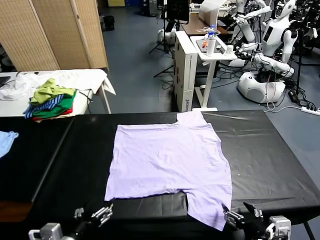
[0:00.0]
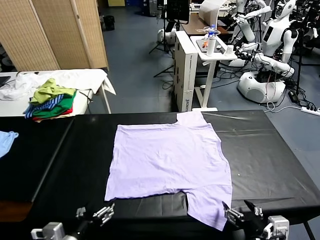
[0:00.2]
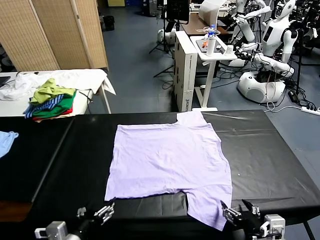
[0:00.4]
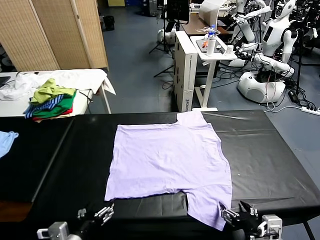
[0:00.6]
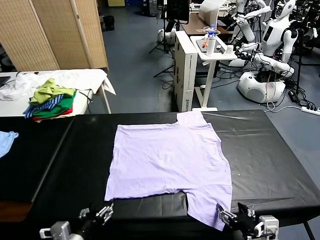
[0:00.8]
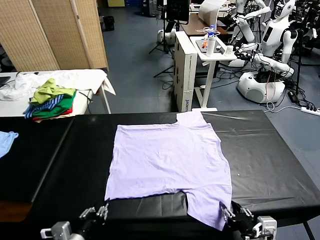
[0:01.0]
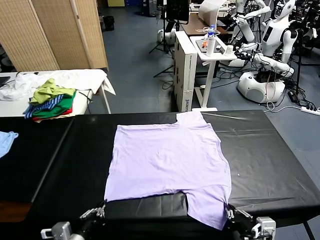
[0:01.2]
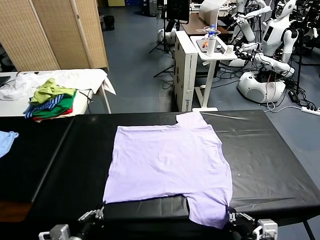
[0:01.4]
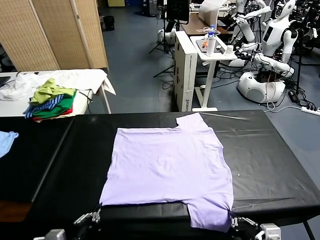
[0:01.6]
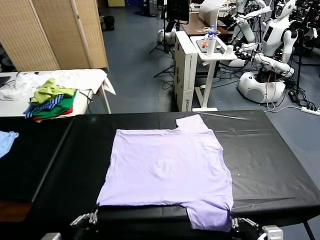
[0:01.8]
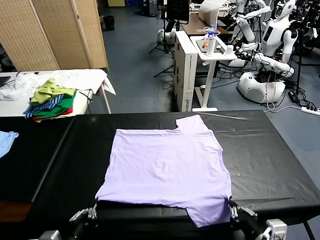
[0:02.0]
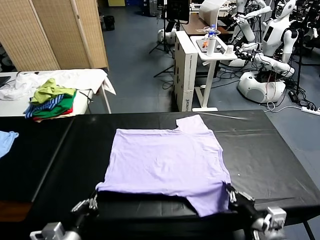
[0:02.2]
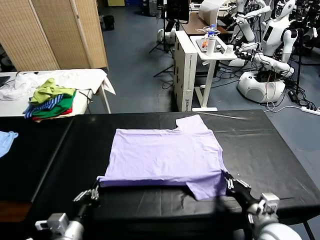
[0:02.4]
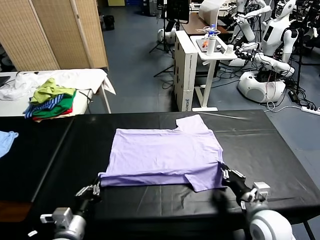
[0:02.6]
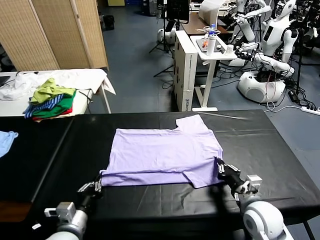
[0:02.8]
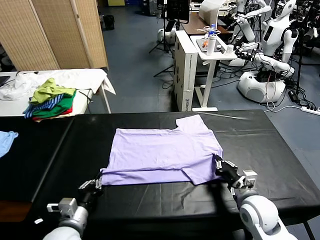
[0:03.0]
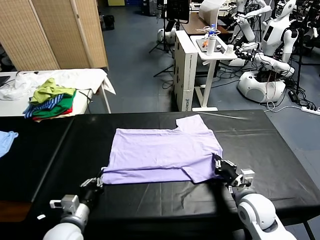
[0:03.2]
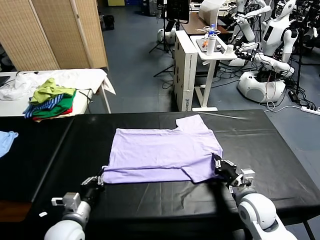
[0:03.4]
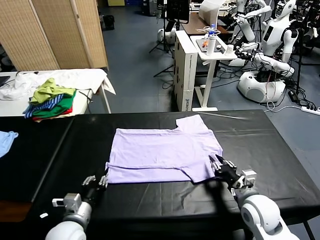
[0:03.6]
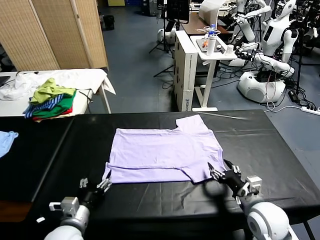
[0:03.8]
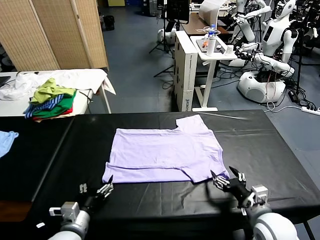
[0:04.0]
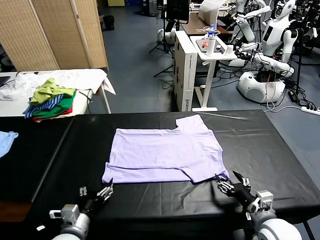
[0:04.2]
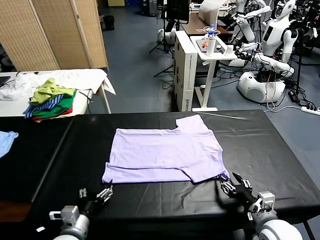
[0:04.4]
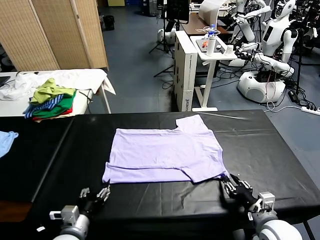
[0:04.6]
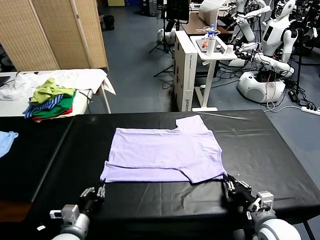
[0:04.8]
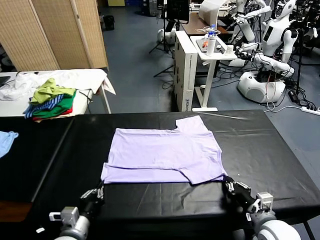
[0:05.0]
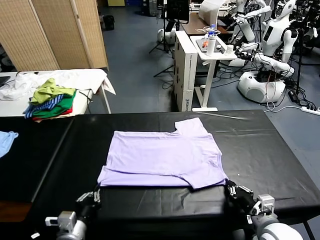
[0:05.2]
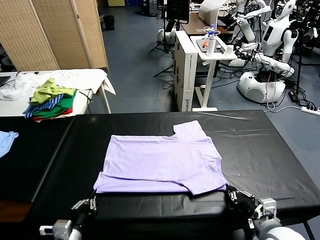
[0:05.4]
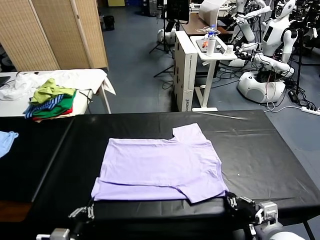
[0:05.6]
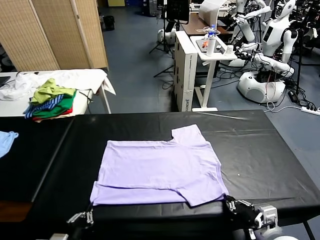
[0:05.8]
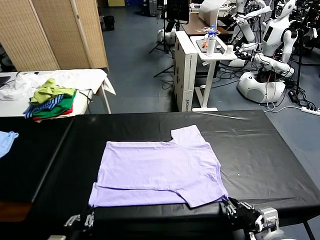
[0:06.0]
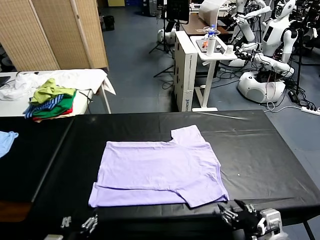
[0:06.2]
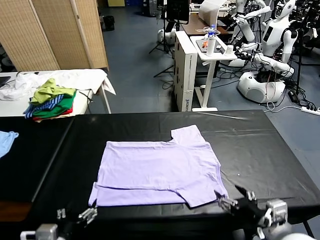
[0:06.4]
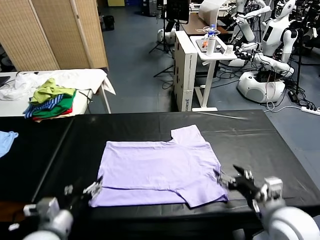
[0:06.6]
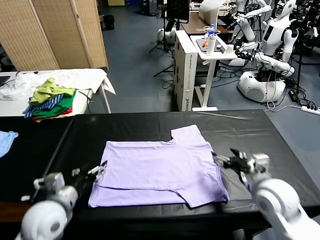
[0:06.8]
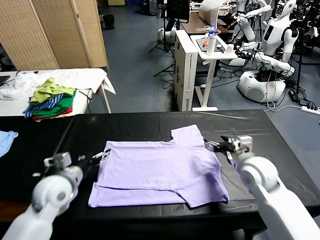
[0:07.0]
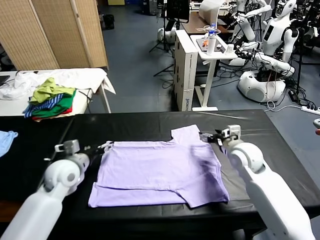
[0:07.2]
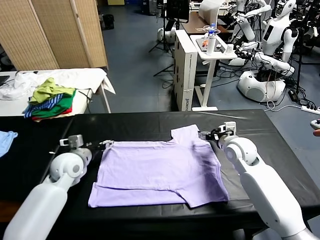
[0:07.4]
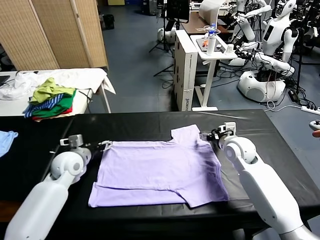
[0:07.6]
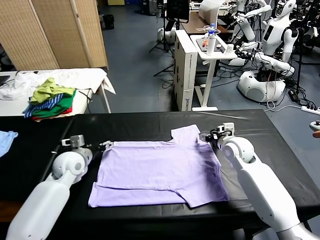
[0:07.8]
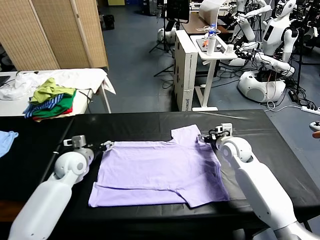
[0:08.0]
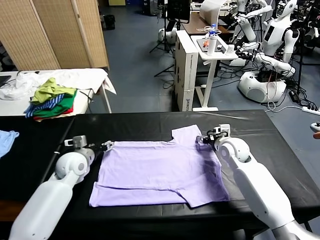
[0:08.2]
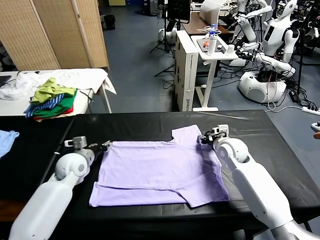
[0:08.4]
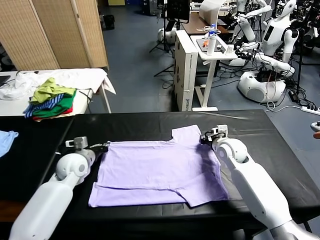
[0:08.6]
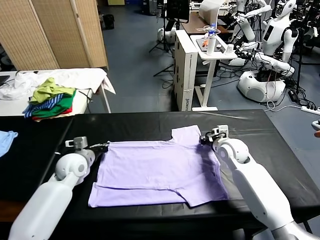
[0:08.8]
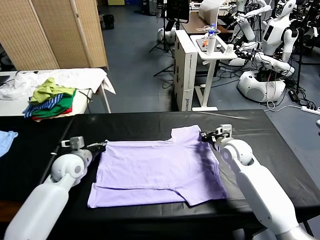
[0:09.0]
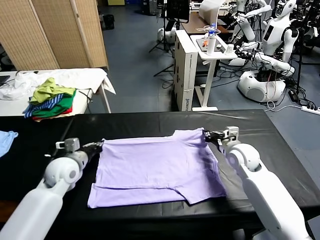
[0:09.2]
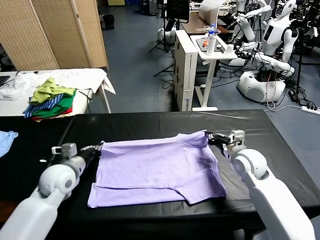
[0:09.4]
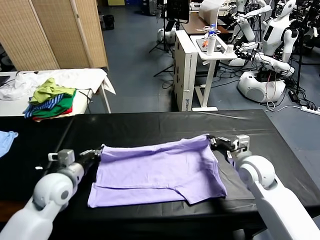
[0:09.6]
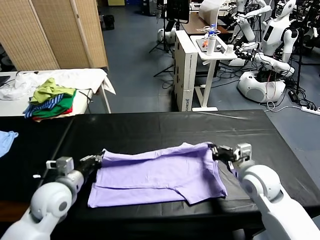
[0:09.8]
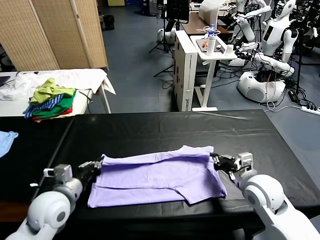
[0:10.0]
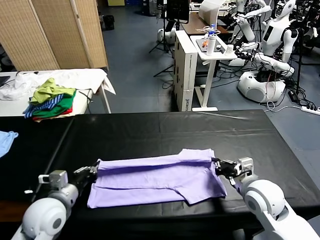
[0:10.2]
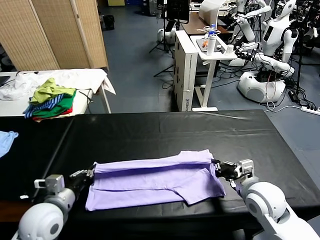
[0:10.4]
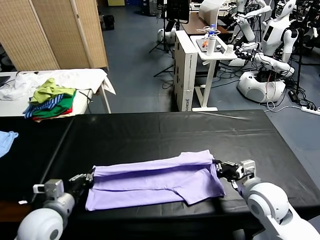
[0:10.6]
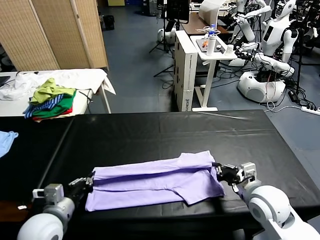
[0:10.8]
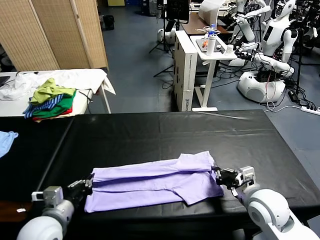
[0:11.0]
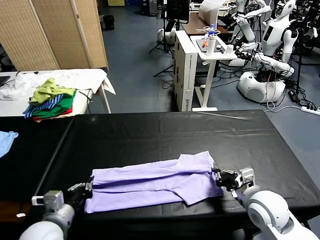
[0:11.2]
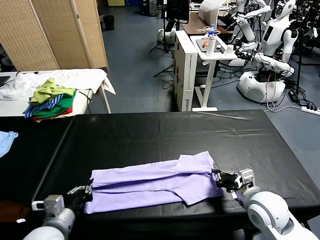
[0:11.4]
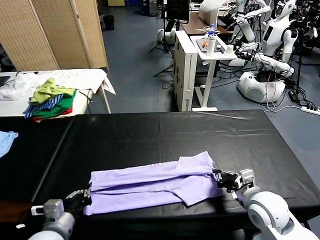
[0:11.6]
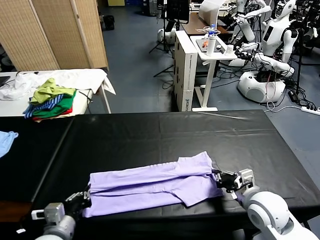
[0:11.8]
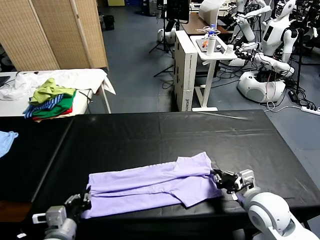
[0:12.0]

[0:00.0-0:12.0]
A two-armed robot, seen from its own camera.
Task of the whole recording: fold and organize the clothes.
Step, 0:00.0 to 0:02.0: use both grippers simultaneously to clamp the lower edge of the clothing fabric.
Step, 0:02.2 to 0:03.6: use both grippers to drag the lower edge of the fabric forward and fold it over the upper edge.
Step, 0:03.8 to 0:06.0: Drag the clothes downward with both gripper.
Step, 0:06.2 to 0:09.0: use both grippers simultaneously to clamp the upper edge of the clothing fabric.
0:01.6 to 0:03.0: The left gripper is displaced forward and downward by some 10 cm. Meanwhile the right gripper heads forward, covering some 15 cm.
0:03.0 to 0:04.4: The right gripper goes some 10 cm backward, and opens its fingers, while the left gripper opens its fingers.
0:04.4 to 0:06.0: The right gripper heads upward and backward, covering approximately 10 cm, and opens up; the left gripper travels backward and upward by approximately 10 cm, and closes, then reopens.
0:06.0 to 0:07.6: Both grippers move forward, approximately 30 cm. The left gripper opens.
0:07.6 to 0:09.0: The right gripper closes up; the left gripper closes its fingers.
0:09.0 to 0:10.4: The two grippers go some 15 cm backward.
0:10.4 to 0:12.0: The right gripper opens up; the left gripper goes approximately 5 cm backward, and opens.

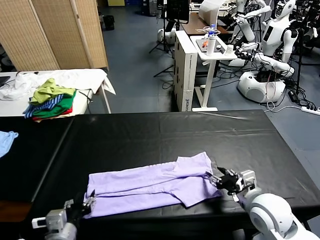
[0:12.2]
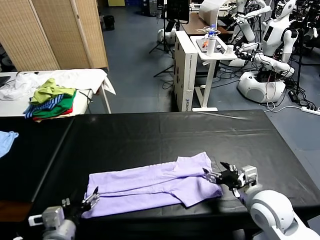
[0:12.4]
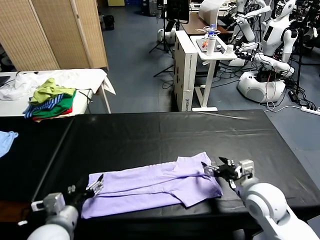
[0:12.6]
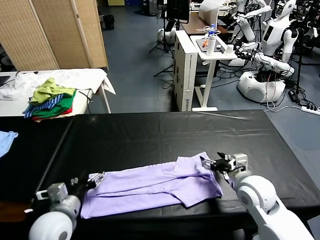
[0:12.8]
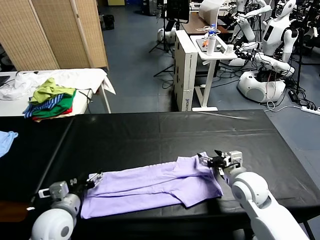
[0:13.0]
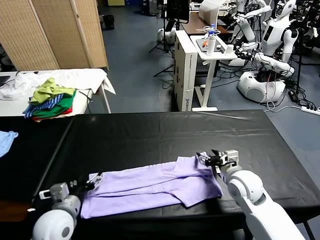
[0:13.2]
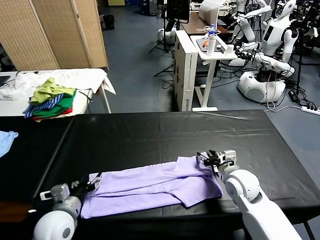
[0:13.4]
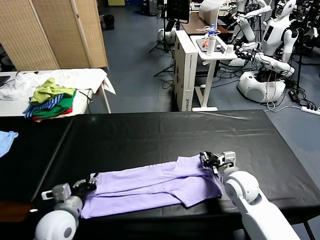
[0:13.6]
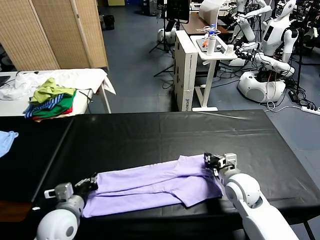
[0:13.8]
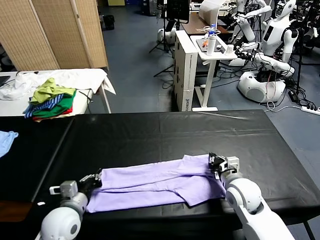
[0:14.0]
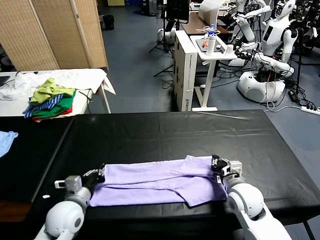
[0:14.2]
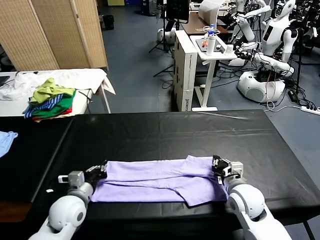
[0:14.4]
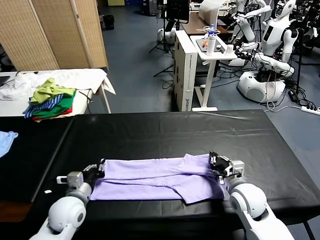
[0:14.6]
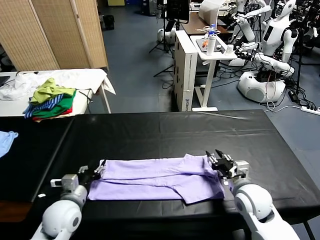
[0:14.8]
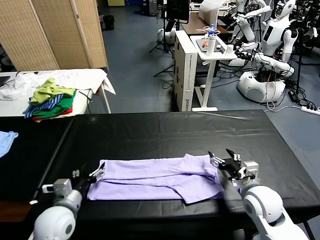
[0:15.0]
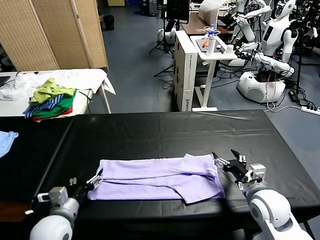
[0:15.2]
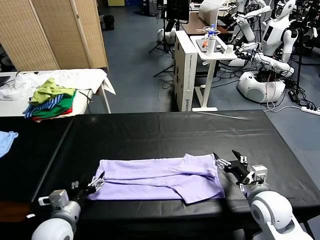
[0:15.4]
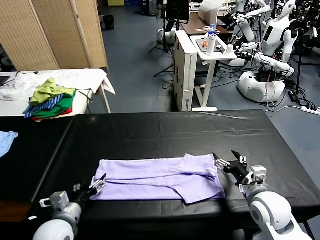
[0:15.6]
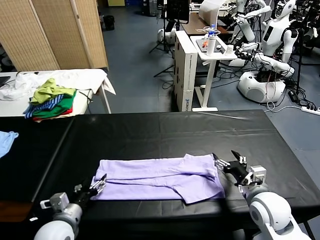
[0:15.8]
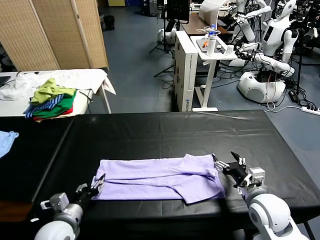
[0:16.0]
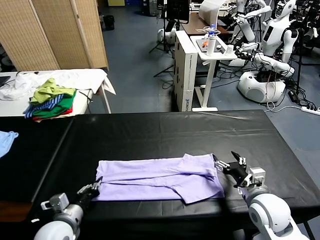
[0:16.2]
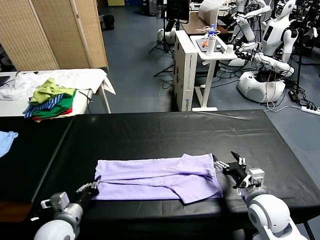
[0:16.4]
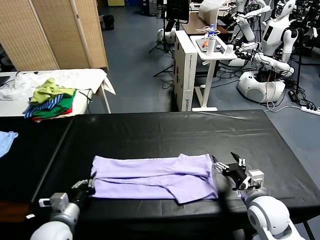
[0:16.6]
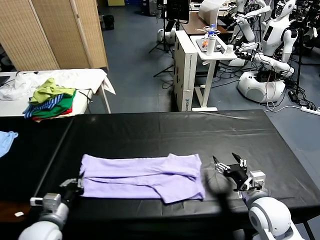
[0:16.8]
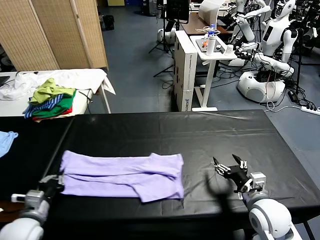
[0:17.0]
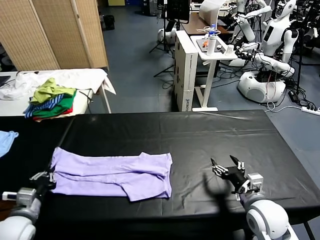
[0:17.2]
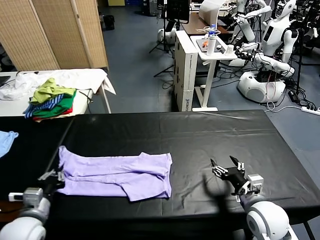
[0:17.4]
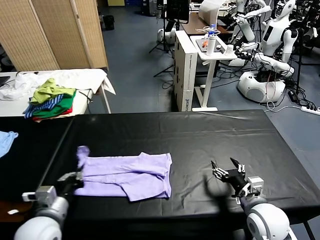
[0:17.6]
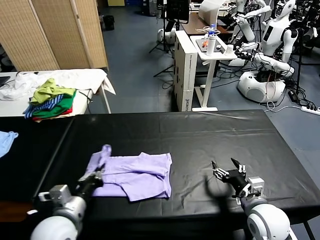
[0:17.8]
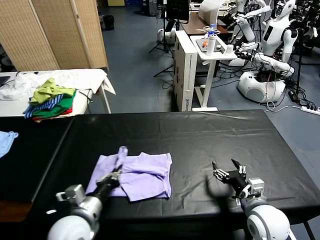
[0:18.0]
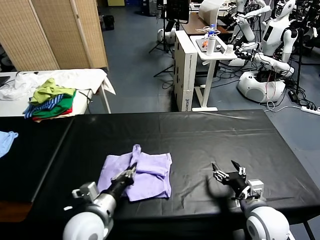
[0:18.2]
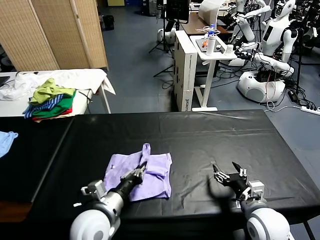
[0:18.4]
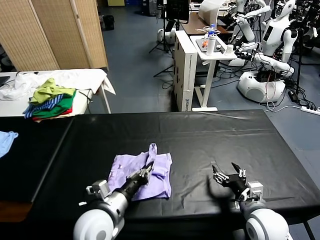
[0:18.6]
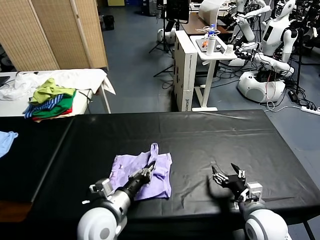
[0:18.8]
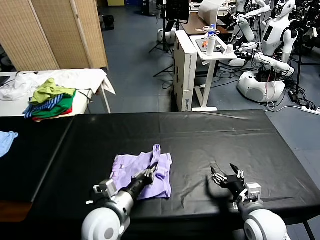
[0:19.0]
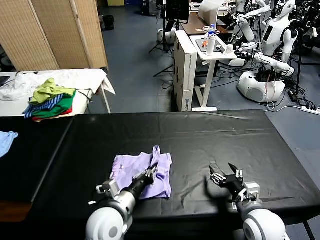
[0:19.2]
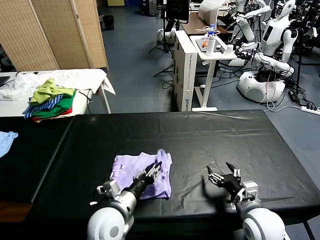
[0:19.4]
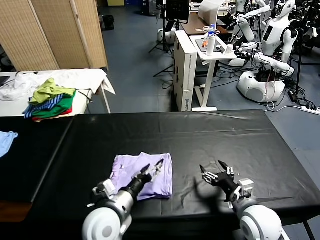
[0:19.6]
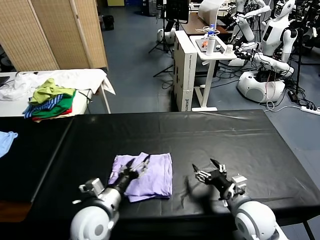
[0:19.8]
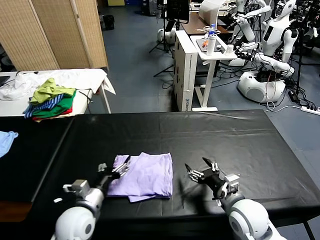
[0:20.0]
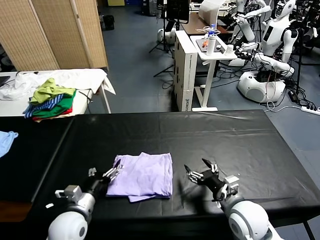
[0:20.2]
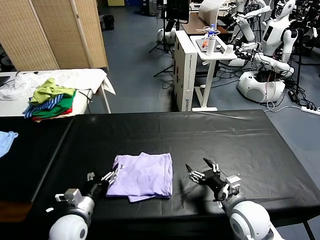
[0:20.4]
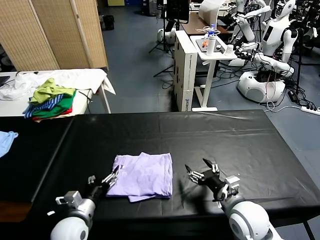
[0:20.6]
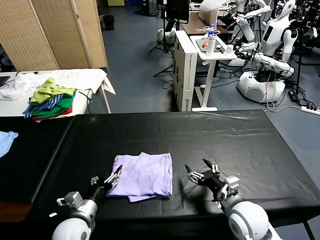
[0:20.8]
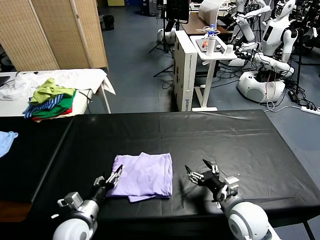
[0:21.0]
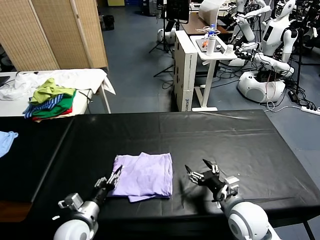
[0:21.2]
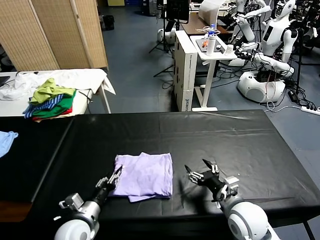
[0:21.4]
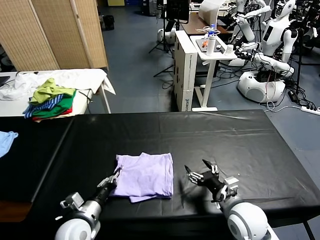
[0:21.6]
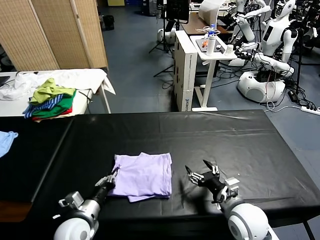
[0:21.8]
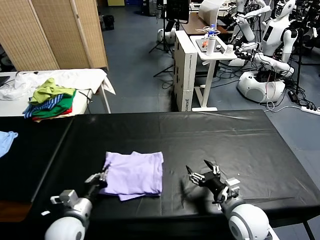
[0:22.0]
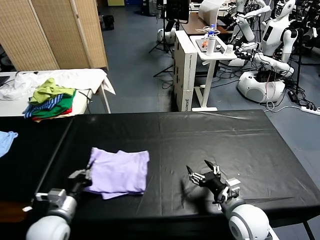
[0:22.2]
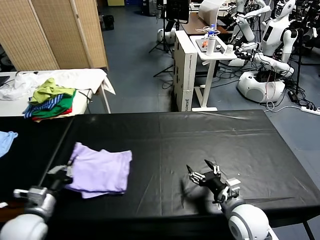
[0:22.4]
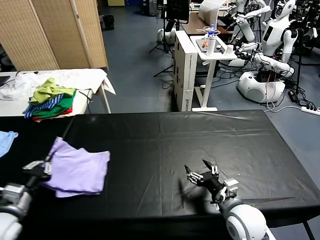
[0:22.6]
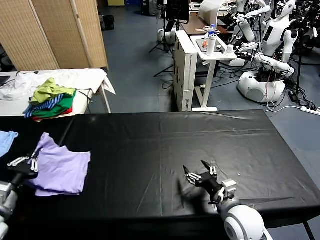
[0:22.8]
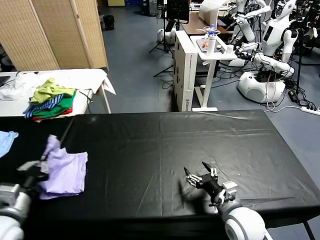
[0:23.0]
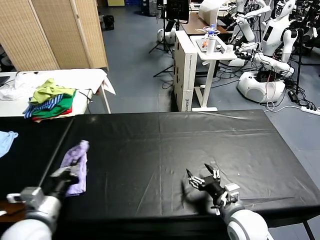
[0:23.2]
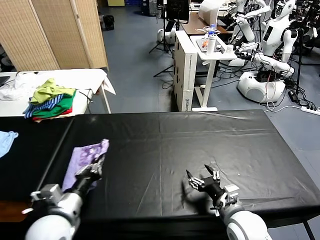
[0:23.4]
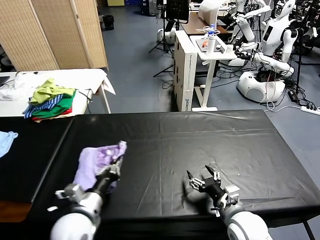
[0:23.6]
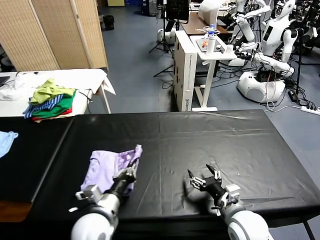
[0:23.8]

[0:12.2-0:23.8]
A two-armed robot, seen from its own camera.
Task of the whole recording: fold and organize the clothes.
Step, 0:12.2 to 0:16.4: use the left gripper to clamp the left edge of the fabric.
Step, 0:16.6 to 0:19.4: use the left gripper to drag the left edge of the fabric to the left and folds it over the right edge.
0:12.2 to 0:13.6: The right gripper shifts some 10 cm forward and downward, and closes up; the left gripper travels forward by approximately 10 cm, and closes its fingers.
0:13.6 to 0:15.0: The right gripper heads backward, covering about 5 cm, and opens, while the left gripper opens.
0:15.0 to 0:16.6: The left gripper closes.
0:16.6 to 0:18.0: The left gripper is displaced to the right and upward by roughly 10 cm.
0:18.0 to 0:19.4: The left gripper is displaced to the right by approximately 5 cm, and opens up.
0:19.4 to 0:21.0: The left gripper moves to the left and downward, about 15 cm.
0:21.0 to 0:22.4: The left gripper shifts about 10 cm to the left and upward, and closes up.
0:22.4 to 0:23.8: The left gripper moves to the right, some 15 cm.
